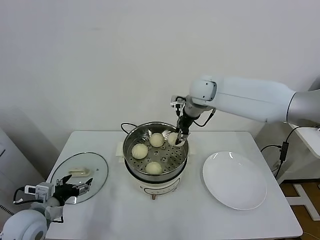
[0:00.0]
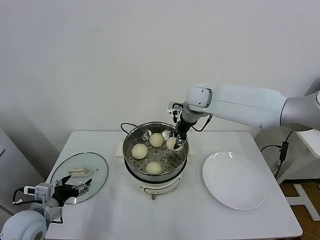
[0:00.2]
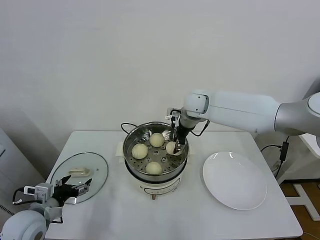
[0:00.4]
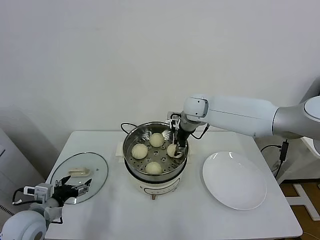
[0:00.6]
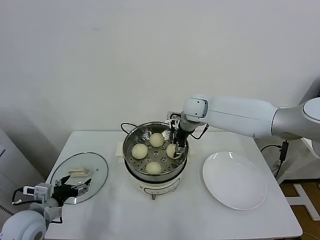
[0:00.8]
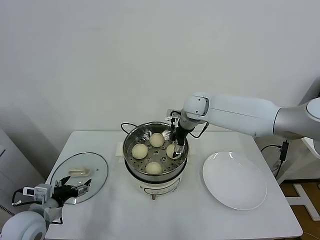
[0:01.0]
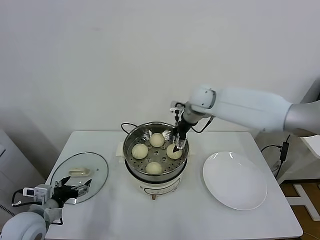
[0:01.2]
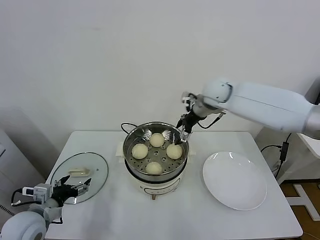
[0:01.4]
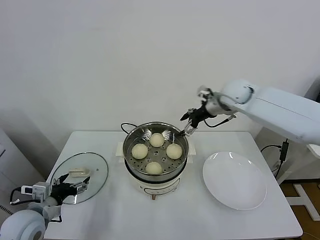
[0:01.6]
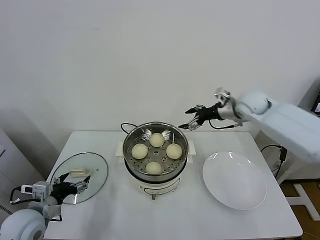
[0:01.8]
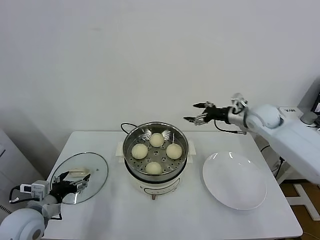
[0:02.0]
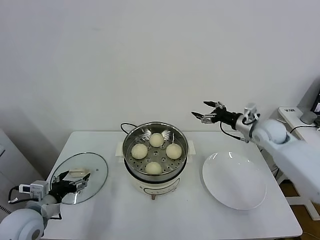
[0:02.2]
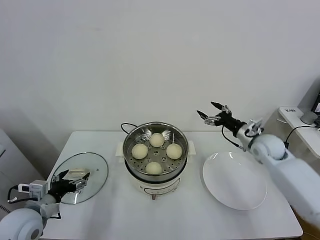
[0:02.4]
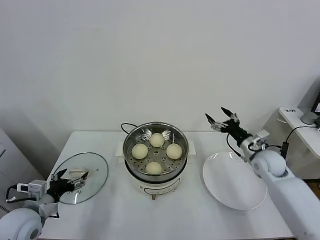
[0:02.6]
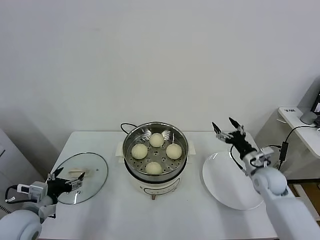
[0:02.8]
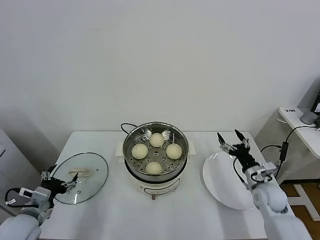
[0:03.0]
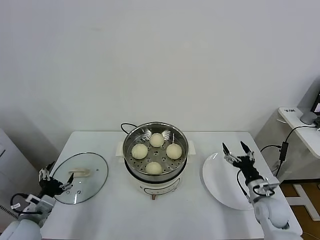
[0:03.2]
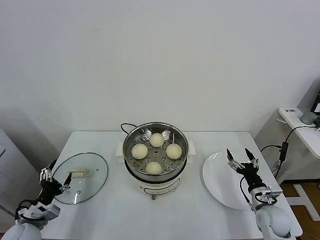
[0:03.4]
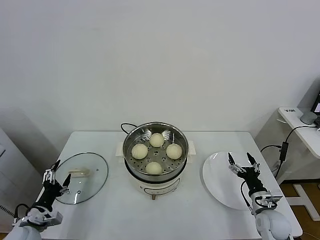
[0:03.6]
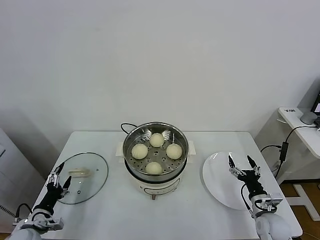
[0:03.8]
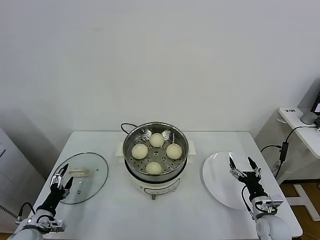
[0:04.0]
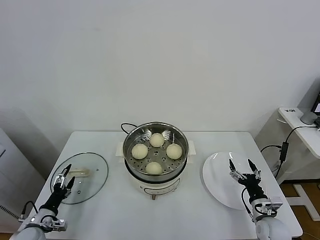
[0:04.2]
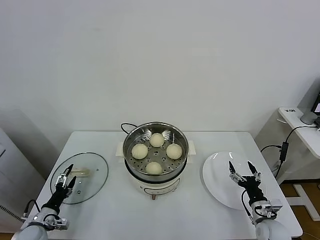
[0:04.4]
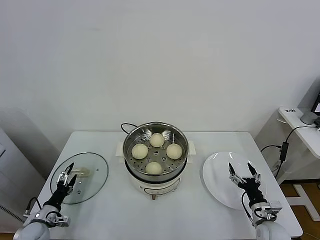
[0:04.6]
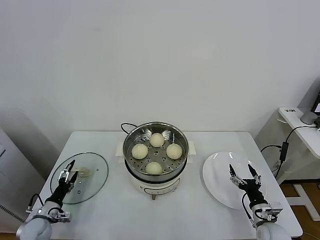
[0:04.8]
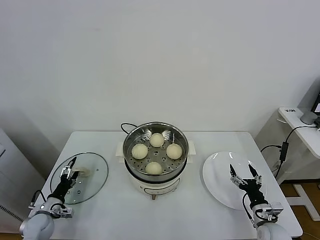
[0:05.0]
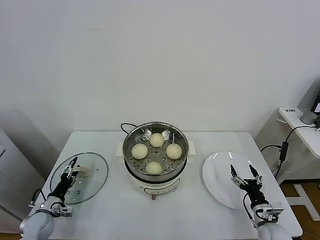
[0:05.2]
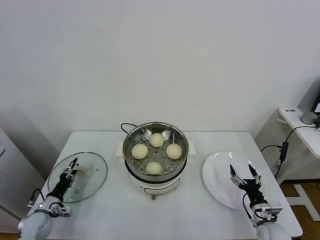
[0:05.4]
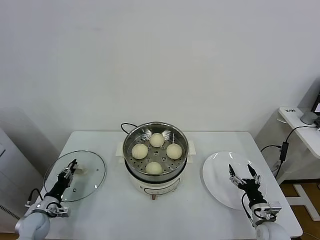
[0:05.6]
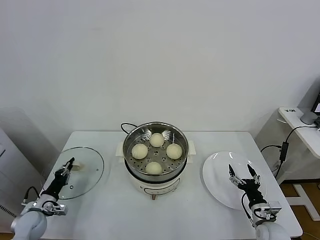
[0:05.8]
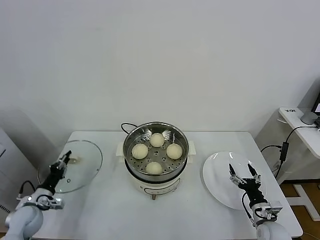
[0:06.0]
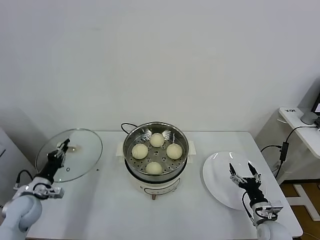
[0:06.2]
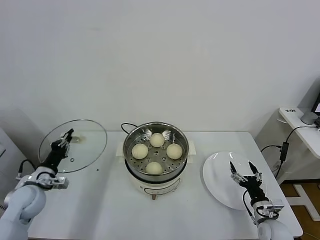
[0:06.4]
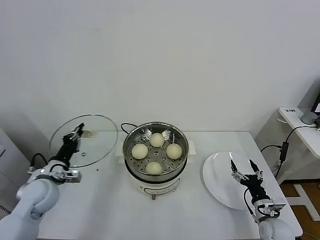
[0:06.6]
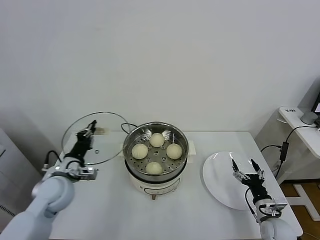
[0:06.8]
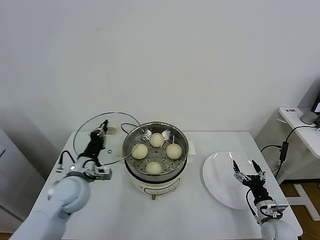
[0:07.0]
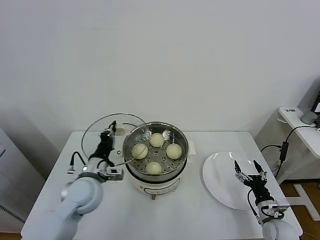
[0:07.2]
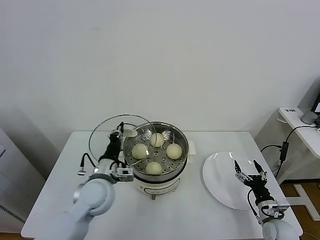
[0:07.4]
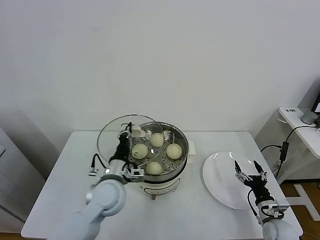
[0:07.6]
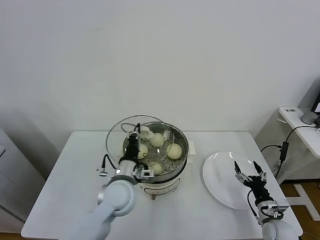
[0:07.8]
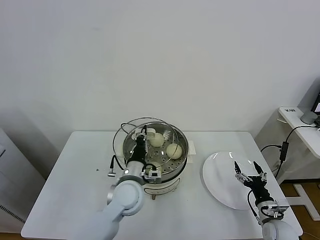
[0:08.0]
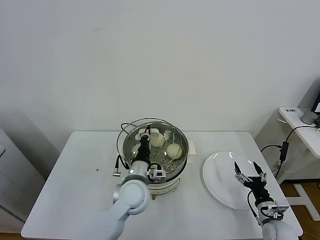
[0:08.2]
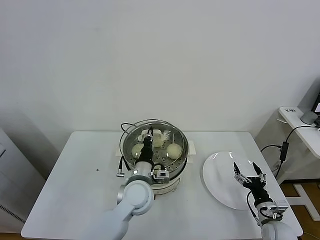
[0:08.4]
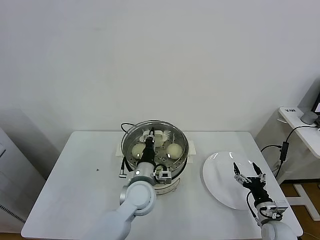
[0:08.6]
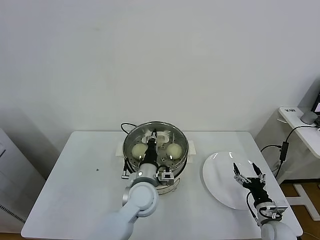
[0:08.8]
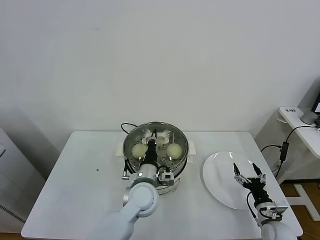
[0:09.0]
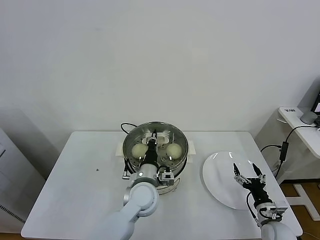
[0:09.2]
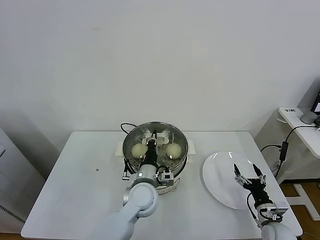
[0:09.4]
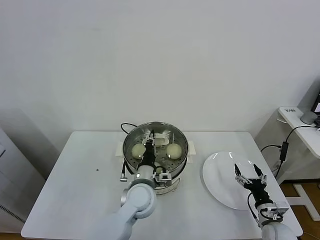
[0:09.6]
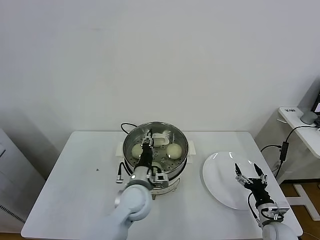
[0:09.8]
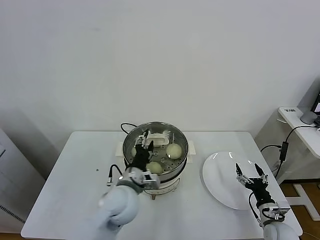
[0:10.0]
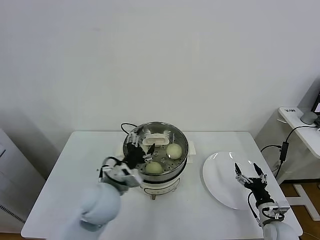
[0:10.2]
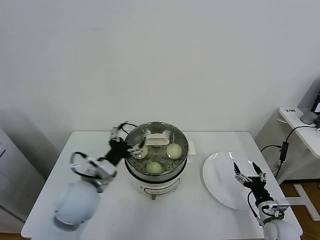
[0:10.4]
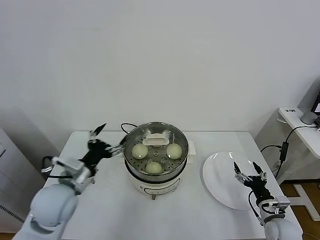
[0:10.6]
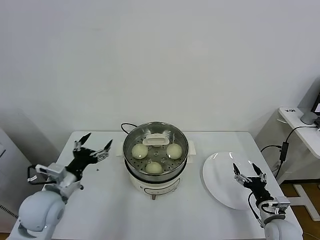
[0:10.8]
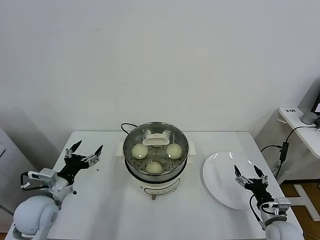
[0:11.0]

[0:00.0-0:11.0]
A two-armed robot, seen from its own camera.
Task of the whole recording: take steamed baozi put them in steamer.
Step, 0:01.2 to 0:05.8: Grasp the pot lid with left gripper.
Step, 0:06.0 to 0:10.4: Place the pot lid on the steamer with left gripper.
0:00.0 to 0:01.6: The right gripper shifts approximately 10 cm to the right, and opens.
0:01.6 to 0:03.2: The left gripper ends up roughly 5 cm from where it was, while the right gripper travels downward, backward and to the right by about 40 cm.
0:03.2 to 0:04.8: The right gripper travels backward and downward by roughly 10 cm. The left gripper heads downward, covering approximately 15 cm.
0:04.8 to 0:06.2: The left gripper shifts roughly 10 cm upward, and closes its fingers.
0:06.2 to 0:07.8: The left gripper is displaced to the right by some 30 cm.
0:07.8 to 0:09.4: The left gripper travels to the right by about 5 cm.
0:09.4 to 0:11.0: The left gripper travels to the left by some 25 cm, and opens.

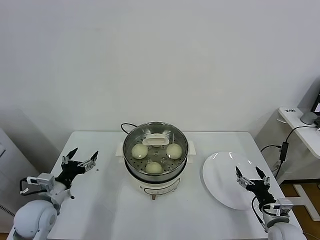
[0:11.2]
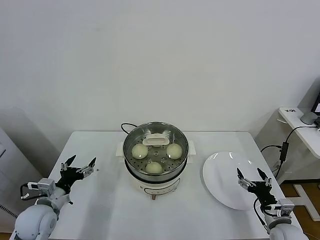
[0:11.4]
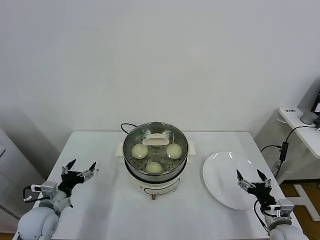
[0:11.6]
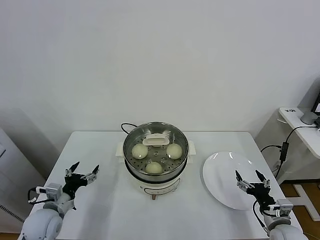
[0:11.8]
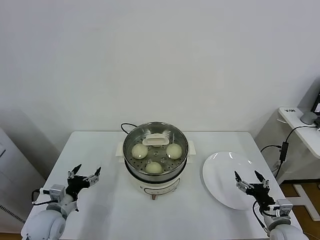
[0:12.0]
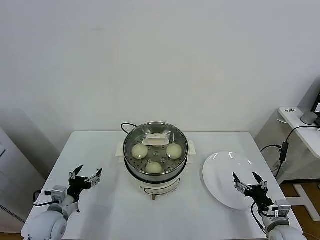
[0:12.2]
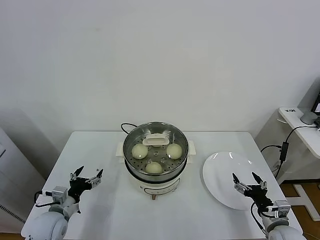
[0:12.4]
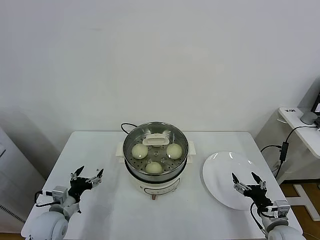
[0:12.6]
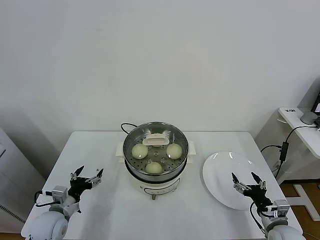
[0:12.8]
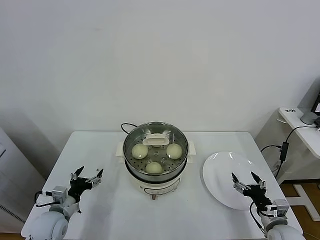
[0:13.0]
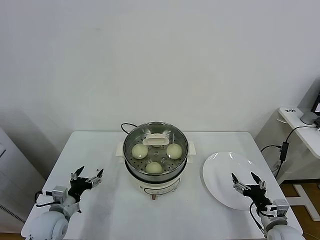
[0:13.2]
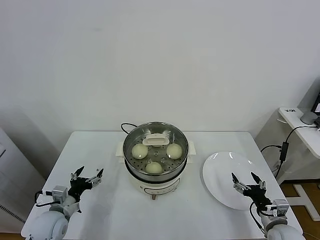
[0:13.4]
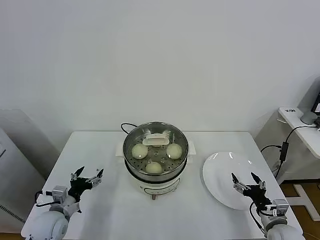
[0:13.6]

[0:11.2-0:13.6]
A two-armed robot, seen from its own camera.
Task of the whole recording: take steamed baozi put them in steamer.
0:11.2 to 0:12.4: The left gripper shifts roughly 10 cm downward.
0:12.4 to 0:13.6: Neither gripper changes place.

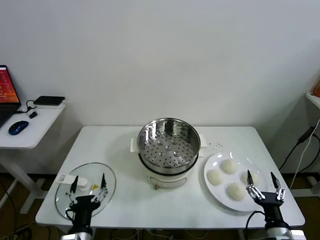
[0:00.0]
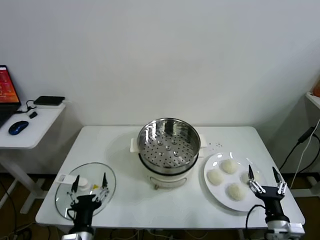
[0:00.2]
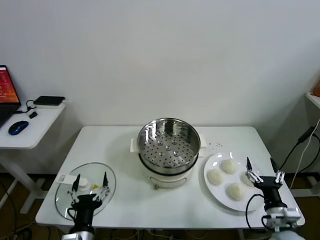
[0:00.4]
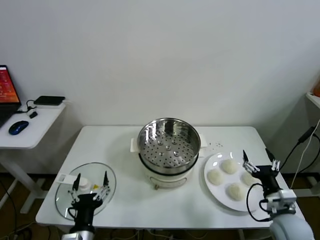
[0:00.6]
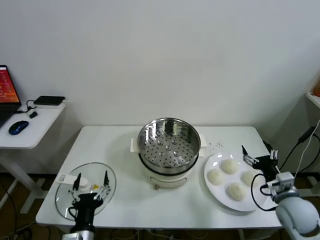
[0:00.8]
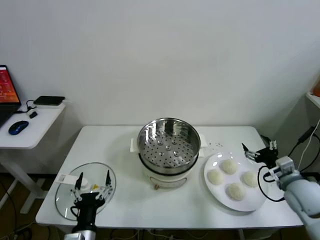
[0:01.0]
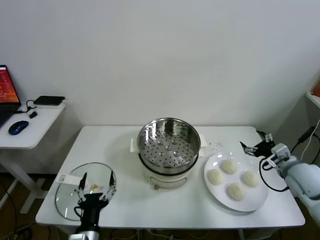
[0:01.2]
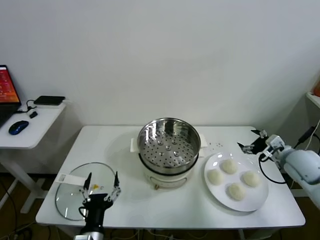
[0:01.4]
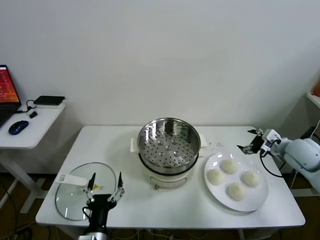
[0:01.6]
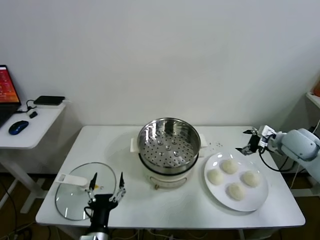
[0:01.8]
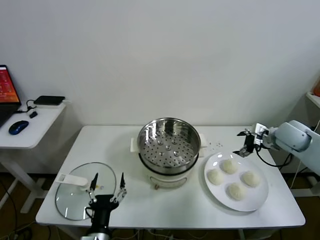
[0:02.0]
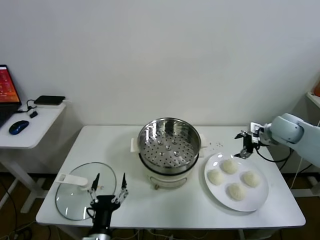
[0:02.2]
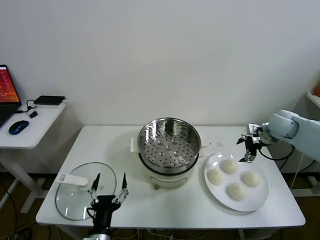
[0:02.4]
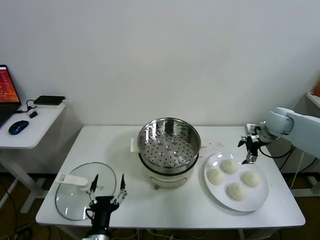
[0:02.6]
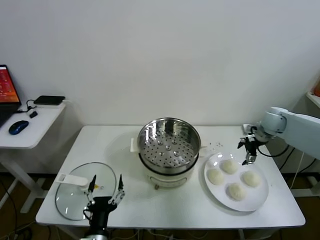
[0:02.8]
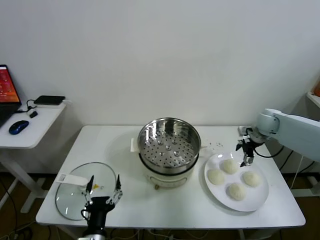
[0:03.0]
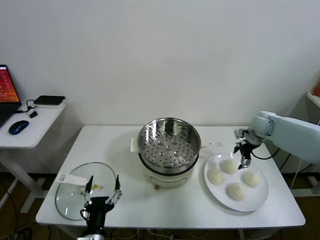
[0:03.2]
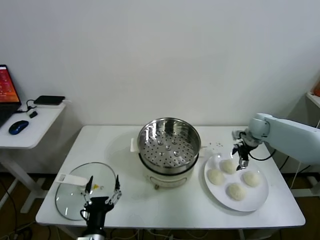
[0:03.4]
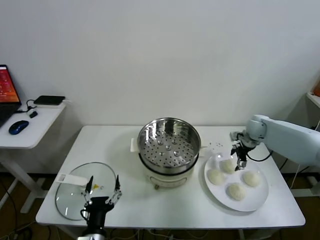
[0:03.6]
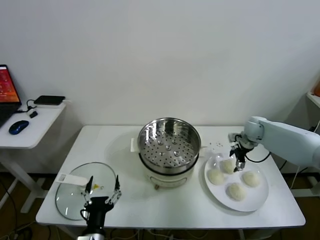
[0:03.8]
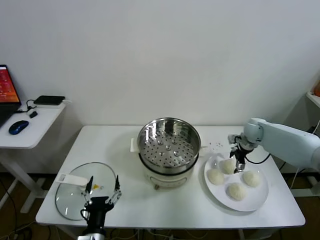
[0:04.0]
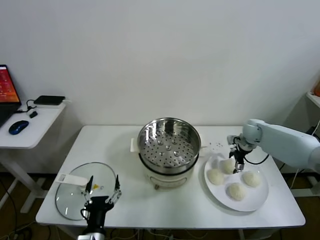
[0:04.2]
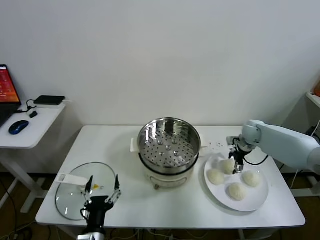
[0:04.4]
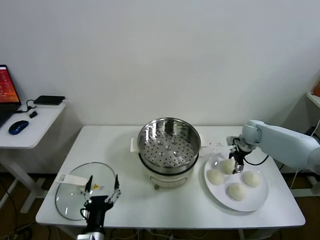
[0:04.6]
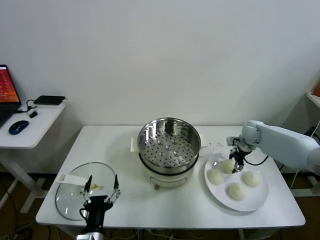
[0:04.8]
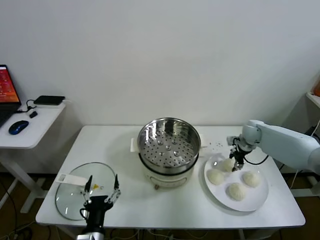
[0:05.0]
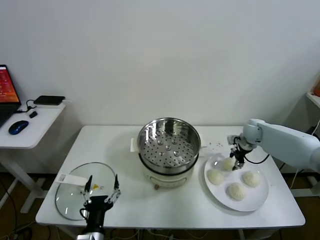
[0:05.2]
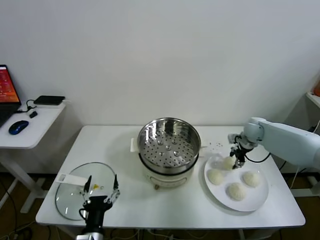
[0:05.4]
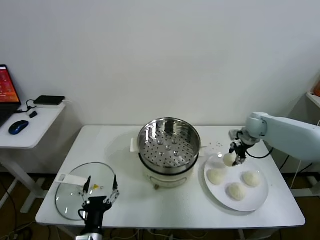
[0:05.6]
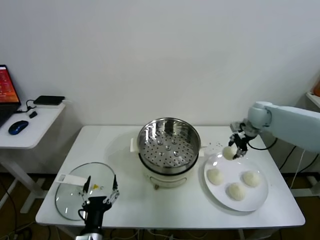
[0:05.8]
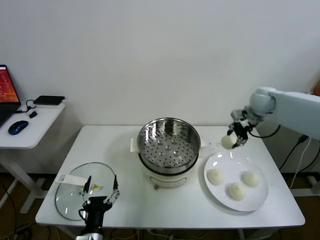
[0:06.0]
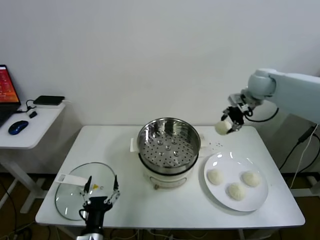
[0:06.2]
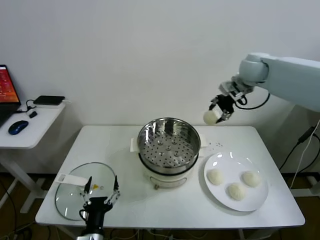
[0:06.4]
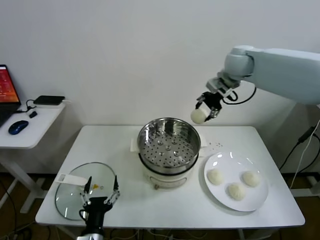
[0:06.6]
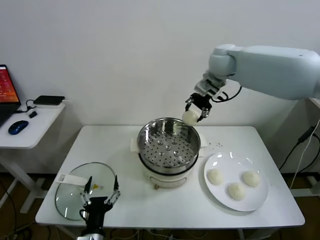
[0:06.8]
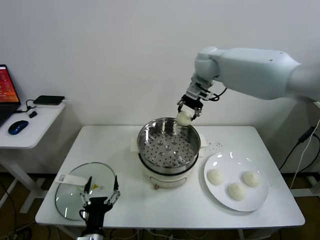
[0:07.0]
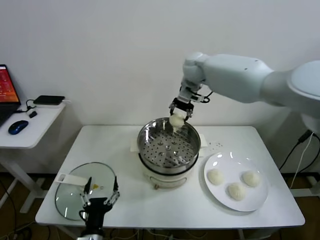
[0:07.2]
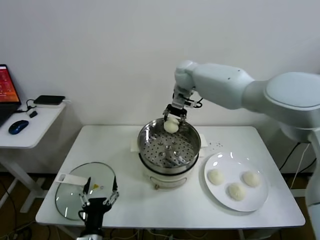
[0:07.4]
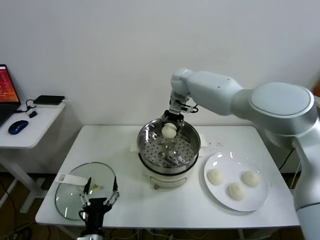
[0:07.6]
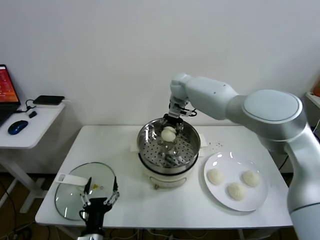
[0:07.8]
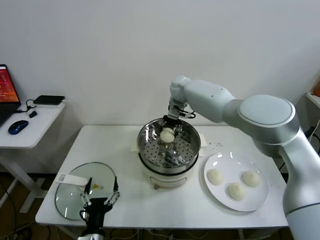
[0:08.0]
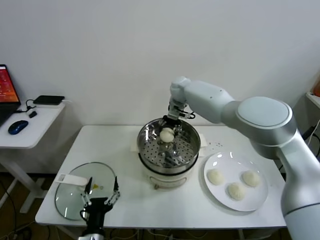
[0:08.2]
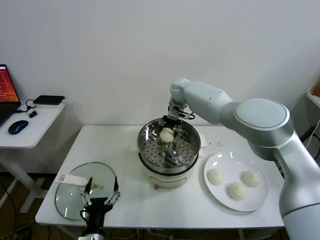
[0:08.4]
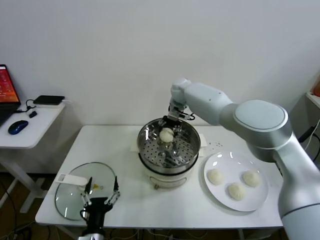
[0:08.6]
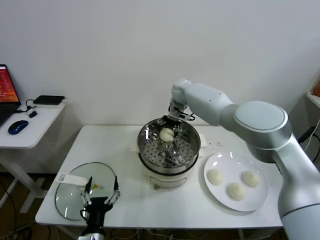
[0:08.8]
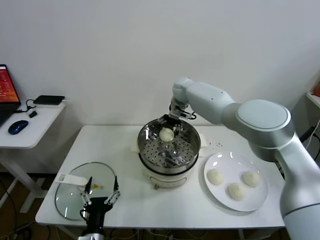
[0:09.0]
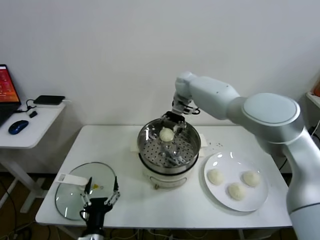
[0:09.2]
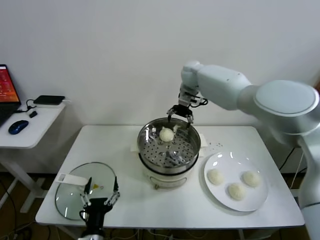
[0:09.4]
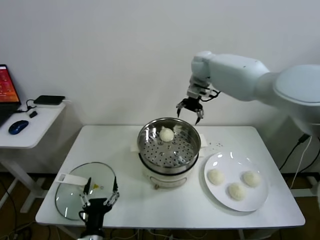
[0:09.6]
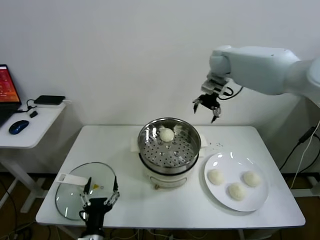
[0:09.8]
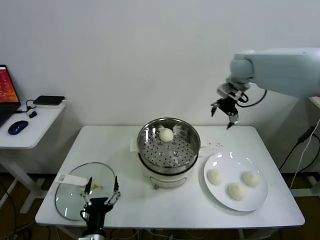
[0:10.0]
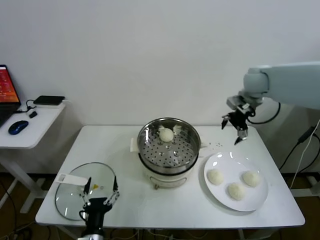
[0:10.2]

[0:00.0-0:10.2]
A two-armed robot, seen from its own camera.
Task of the whole recording: take steamed baozi put them in steamer.
Step, 0:00.0 to 0:04.8: Grasp the baozi in the plate with right gripper.
Step, 0:05.0 to 0:09.0: Place the baozi on the steamer with right gripper.
0:01.4 to 0:03.0: The right gripper shifts approximately 15 cm forward.
0:03.0 to 0:04.4: The right gripper goes some 5 cm downward.
0:04.4 to 0:05.8: The right gripper travels upward by about 15 cm, and closes up.
0:05.8 to 0:07.2: The right gripper is displaced to the left and upward by approximately 30 cm.
0:07.2 to 0:08.8: The right gripper shifts some 10 cm downward, and opens up.
0:08.8 to 0:10.2: The right gripper goes approximately 25 cm to the right and backward.
